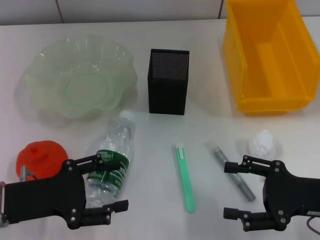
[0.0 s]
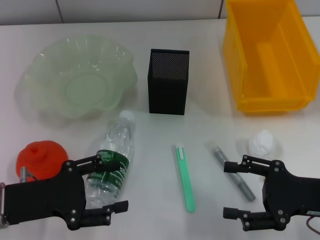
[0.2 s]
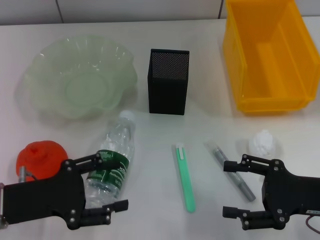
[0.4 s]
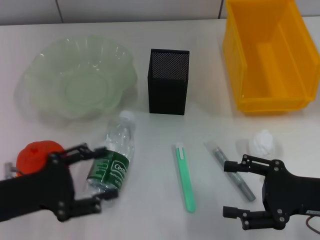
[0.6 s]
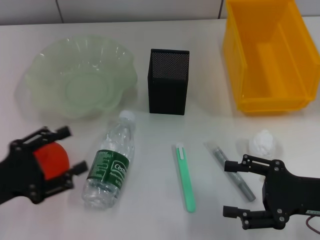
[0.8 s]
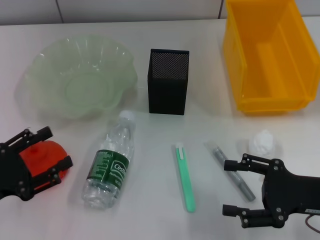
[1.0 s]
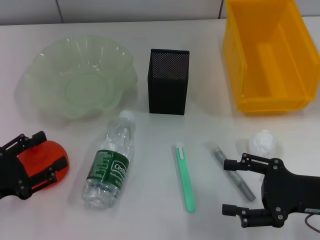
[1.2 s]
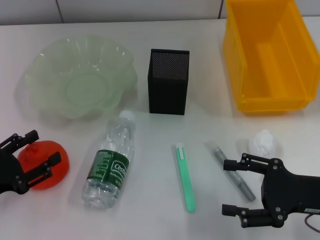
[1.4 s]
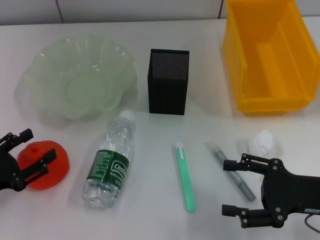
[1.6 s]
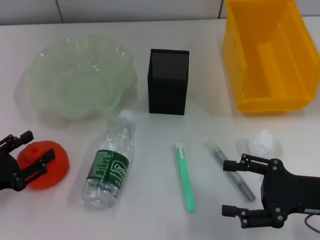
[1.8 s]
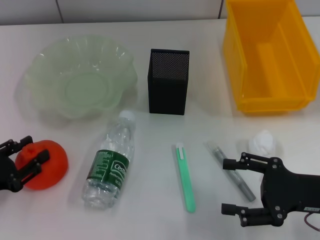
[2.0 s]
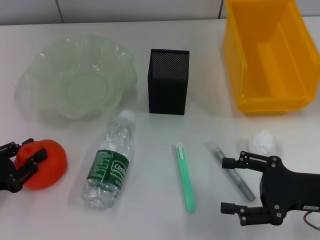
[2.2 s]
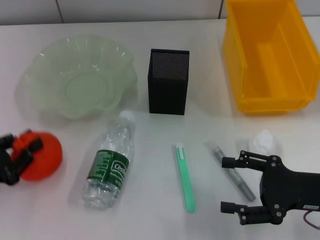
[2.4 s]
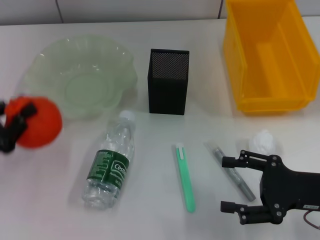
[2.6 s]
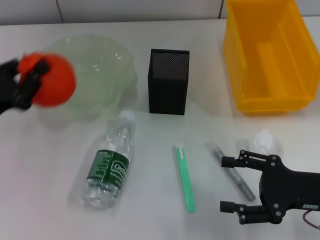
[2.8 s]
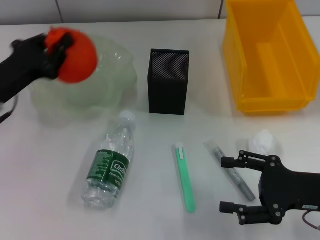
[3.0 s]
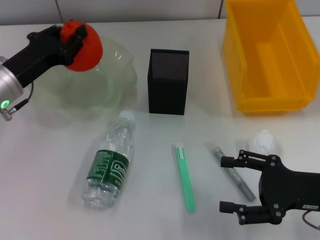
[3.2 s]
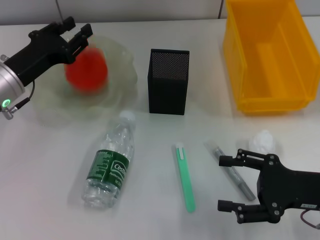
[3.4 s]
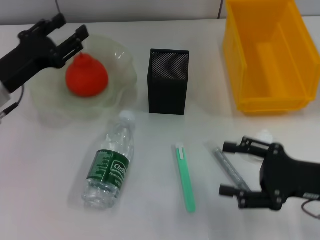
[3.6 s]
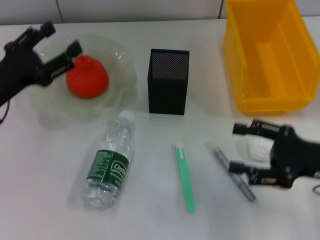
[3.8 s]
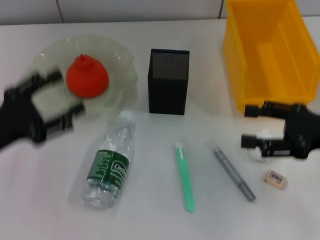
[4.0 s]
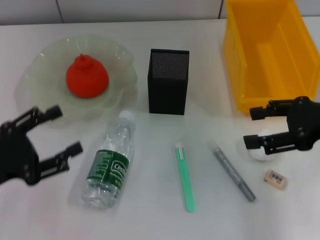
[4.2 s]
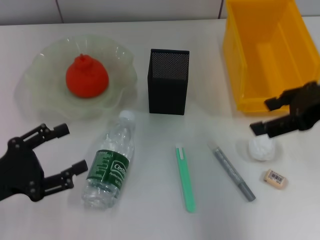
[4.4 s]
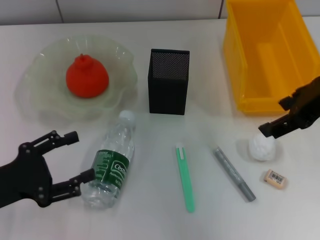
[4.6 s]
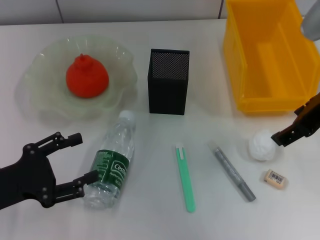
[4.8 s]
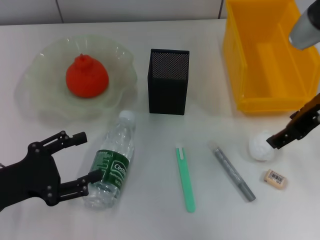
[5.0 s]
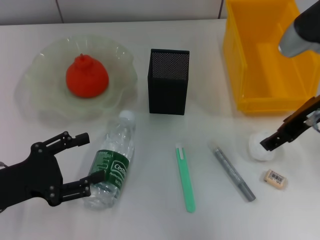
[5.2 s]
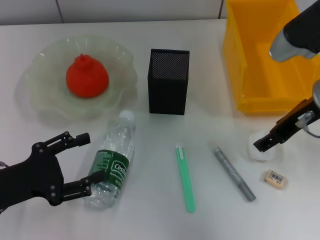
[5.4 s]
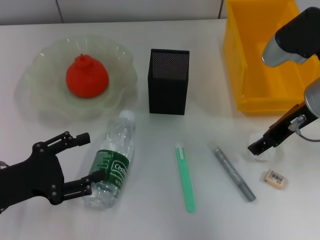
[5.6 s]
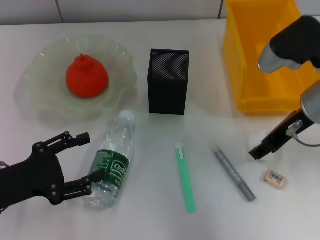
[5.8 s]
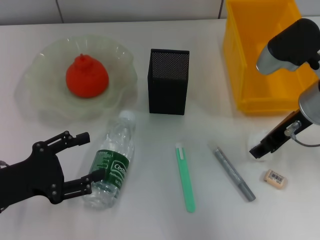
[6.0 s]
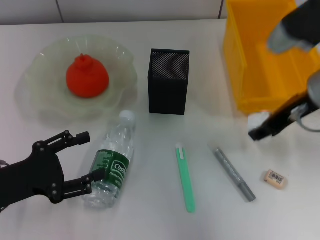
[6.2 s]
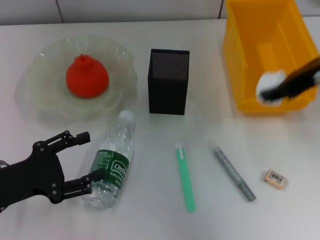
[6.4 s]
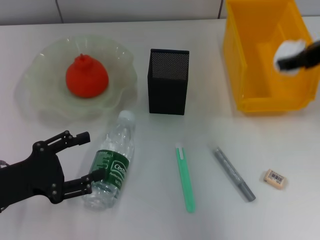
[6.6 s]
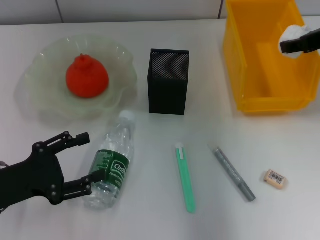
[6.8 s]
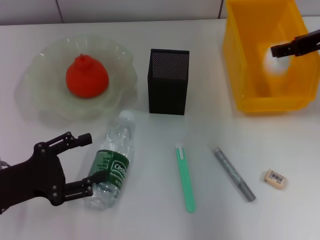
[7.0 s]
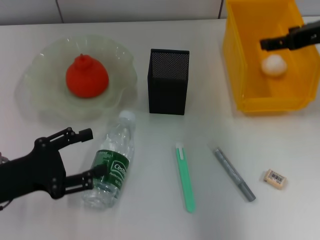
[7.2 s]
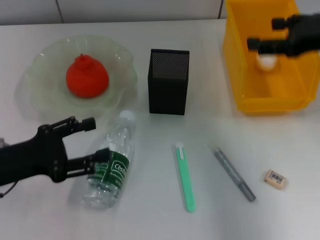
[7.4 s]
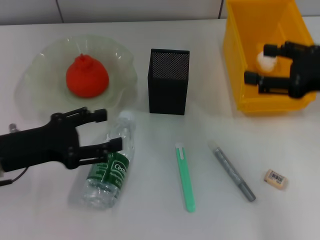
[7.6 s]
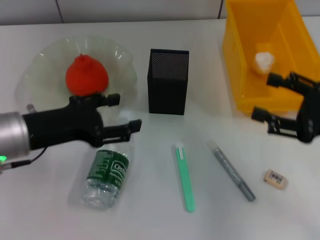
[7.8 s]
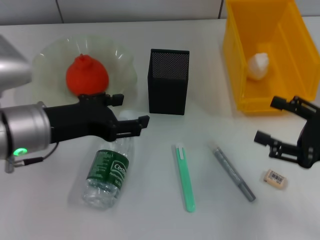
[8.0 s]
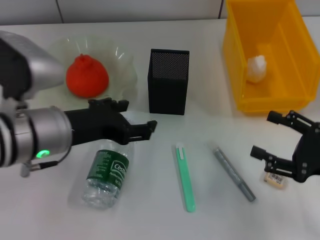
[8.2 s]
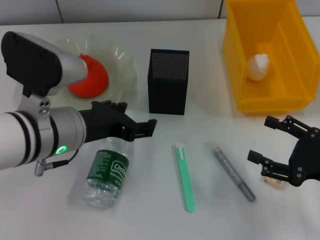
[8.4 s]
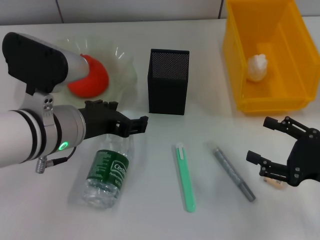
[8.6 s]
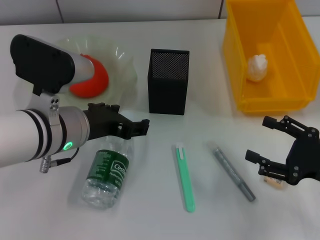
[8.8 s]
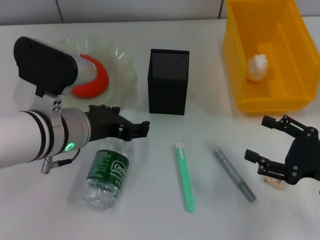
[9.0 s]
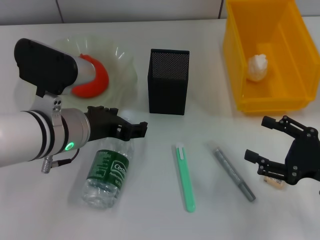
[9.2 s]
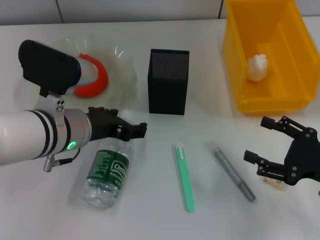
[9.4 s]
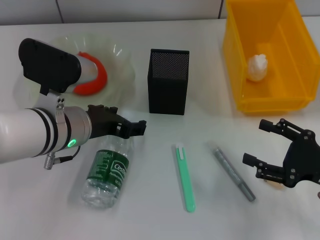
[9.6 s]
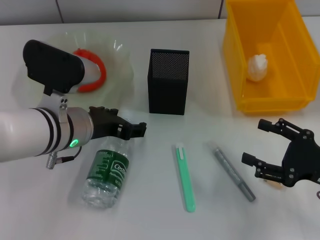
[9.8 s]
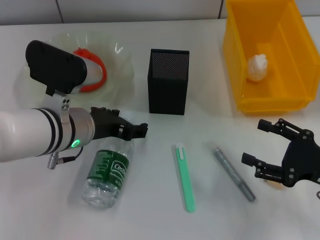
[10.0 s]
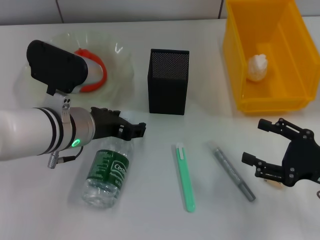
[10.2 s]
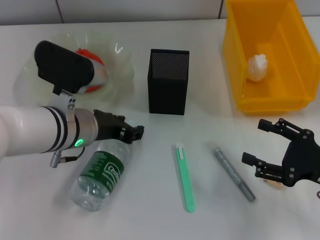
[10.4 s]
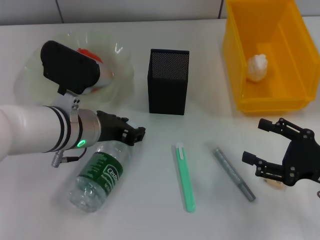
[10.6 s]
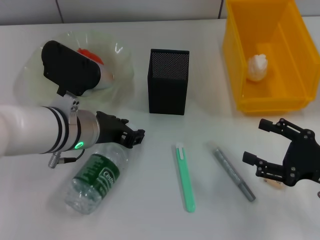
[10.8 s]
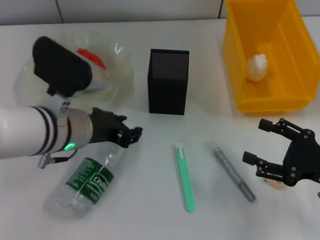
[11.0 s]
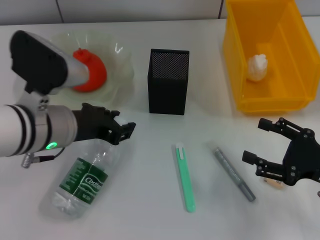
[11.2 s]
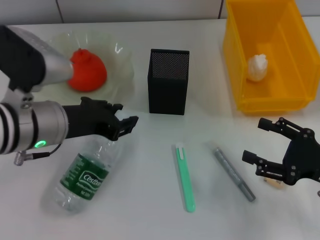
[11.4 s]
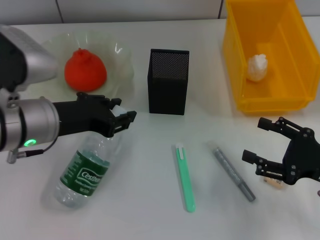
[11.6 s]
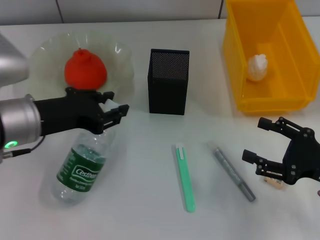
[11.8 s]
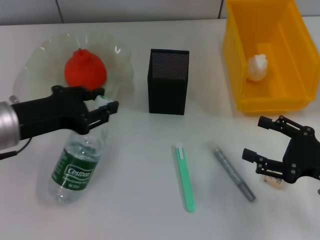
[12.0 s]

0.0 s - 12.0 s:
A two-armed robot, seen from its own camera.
Step, 0.0 s - 2.2 s: Grab the orange with the left hand.
Step, 2.4 s - 3.4 s: Place the orange into the fruit bowl with the left hand.
Step, 3.6 s - 5.8 s: Grab the paper ball with the right hand.
Step, 6.0 s - 7.0 s: Place the paper ball into the trash can with the right hand.
Step, 7.2 s - 10.6 s: Grab the water bottle with the left hand.
0.0 s - 1.6 s: The left gripper goes approximately 5 cm to the left.
1.6 s - 3.0 s: The left gripper heads forward, upward and to the right, covering about 15 cm, and closes up.
3.0 s - 4.4 s: The right gripper heads upward and forward, covering about 20 cm. Meanwhile the left gripper is displaced backward by approximately 10 cm, and opens.
4.4 s - 6.0 s: The right gripper is displaced downward and to the left by approximately 10 cm.
6.0 s - 7.6 s: The right gripper goes some 10 cm to the right, and goes upward and returns, some 10 cm each way. The left gripper shifts by some 5 cm.
7.6 s - 9.0 s: The left gripper is displaced to the right by some 10 cm. Meanwhile the right gripper is displaced downward and backward by roughly 15 cm.
9.0 s - 10.4 s: The grippers stay close to where they were, moving slightly.
10.4 s - 12.0 s: The left gripper moves to the left, some 10 cm, and closes.

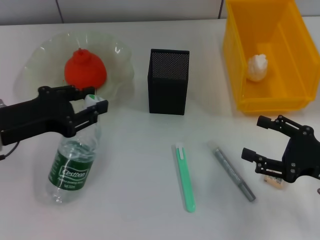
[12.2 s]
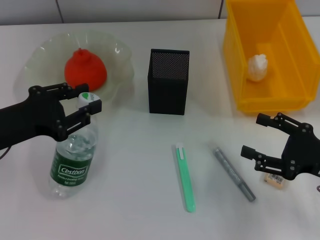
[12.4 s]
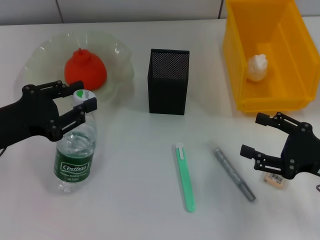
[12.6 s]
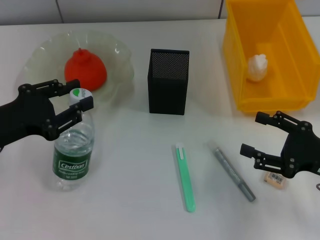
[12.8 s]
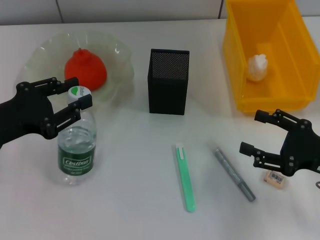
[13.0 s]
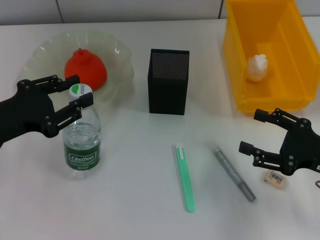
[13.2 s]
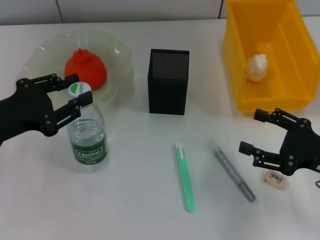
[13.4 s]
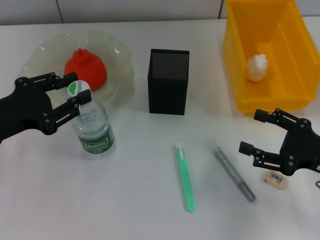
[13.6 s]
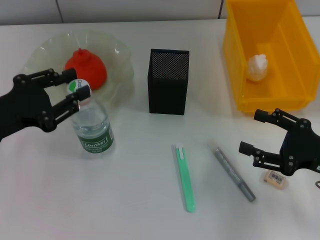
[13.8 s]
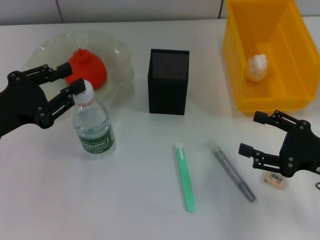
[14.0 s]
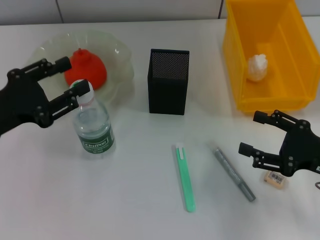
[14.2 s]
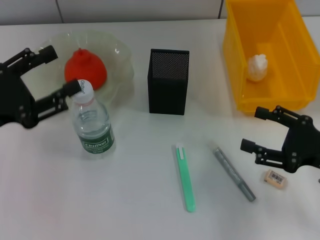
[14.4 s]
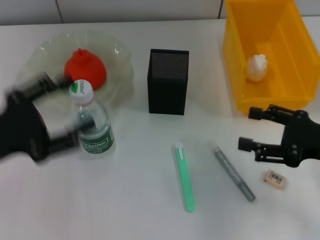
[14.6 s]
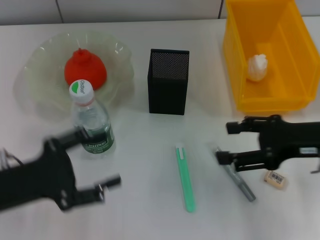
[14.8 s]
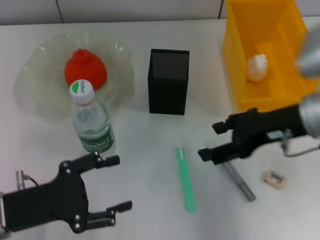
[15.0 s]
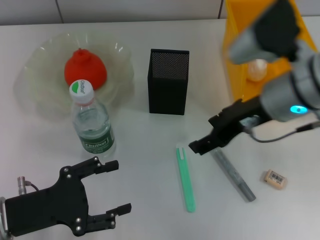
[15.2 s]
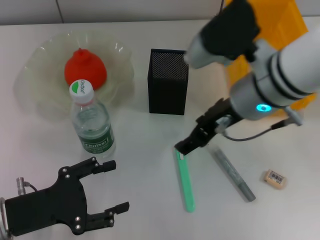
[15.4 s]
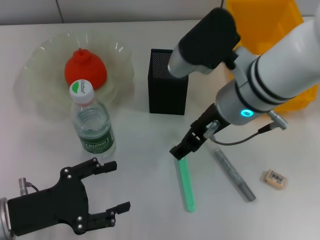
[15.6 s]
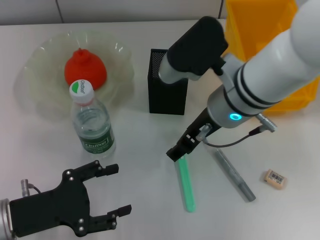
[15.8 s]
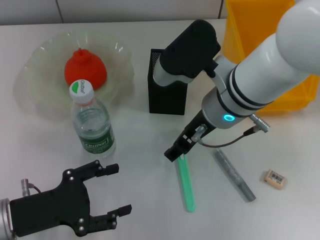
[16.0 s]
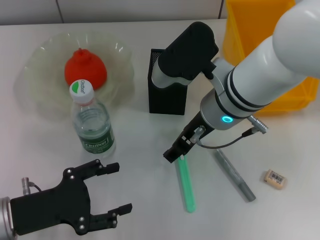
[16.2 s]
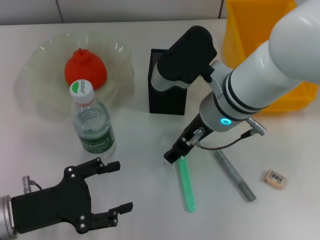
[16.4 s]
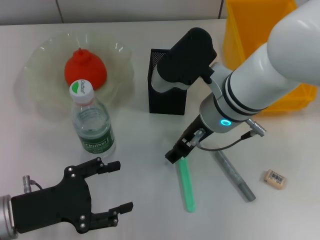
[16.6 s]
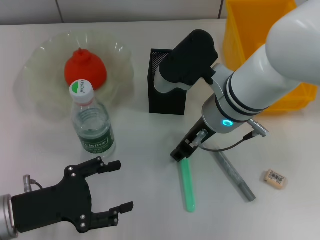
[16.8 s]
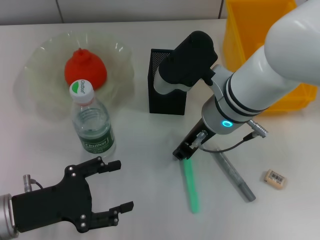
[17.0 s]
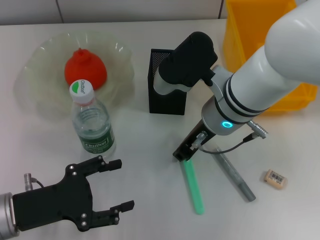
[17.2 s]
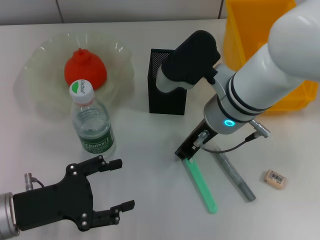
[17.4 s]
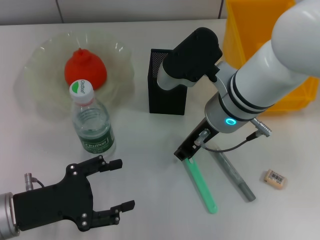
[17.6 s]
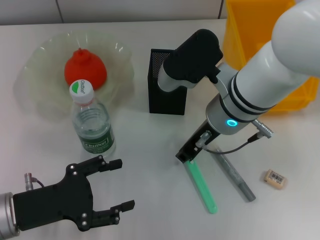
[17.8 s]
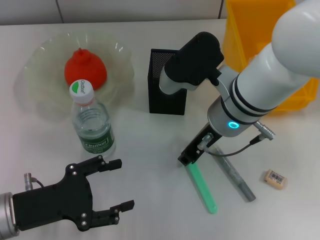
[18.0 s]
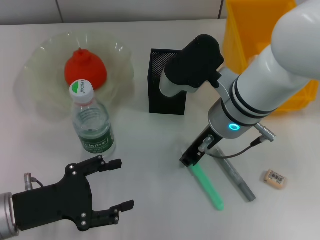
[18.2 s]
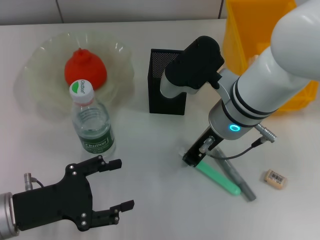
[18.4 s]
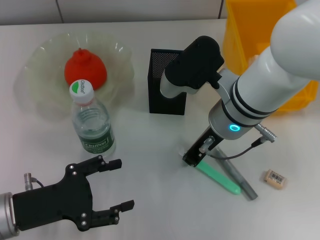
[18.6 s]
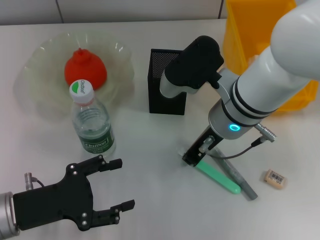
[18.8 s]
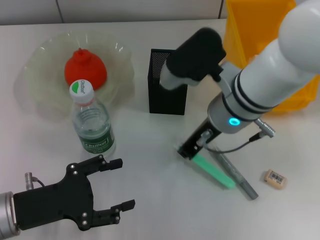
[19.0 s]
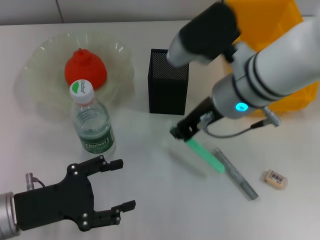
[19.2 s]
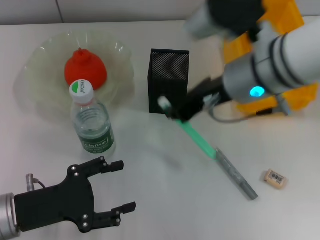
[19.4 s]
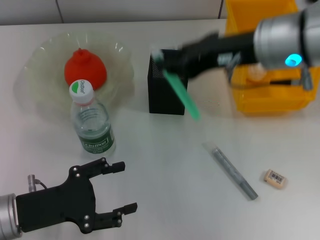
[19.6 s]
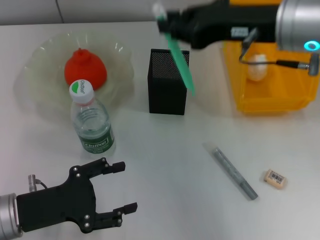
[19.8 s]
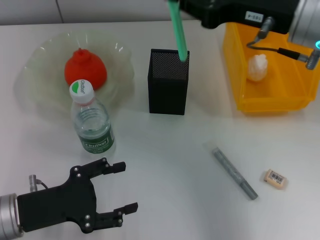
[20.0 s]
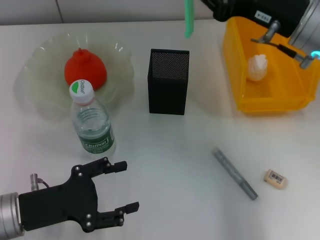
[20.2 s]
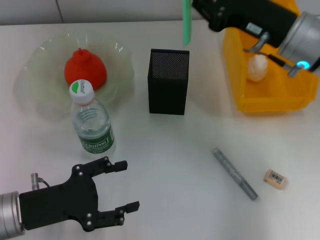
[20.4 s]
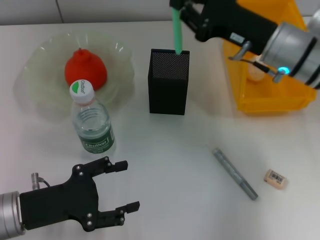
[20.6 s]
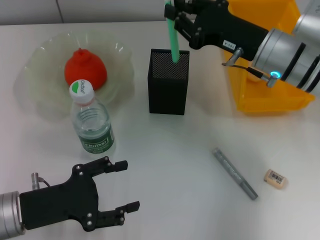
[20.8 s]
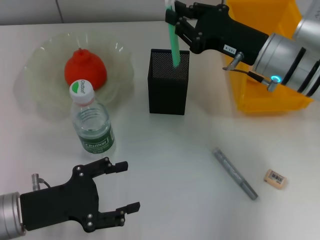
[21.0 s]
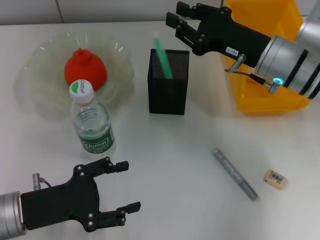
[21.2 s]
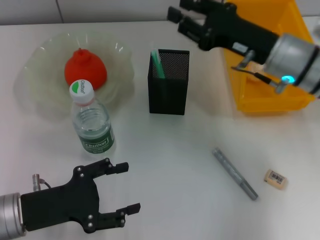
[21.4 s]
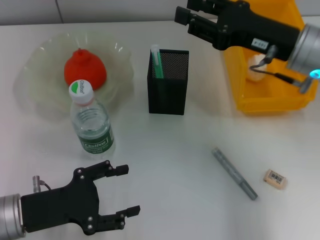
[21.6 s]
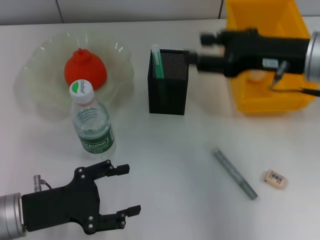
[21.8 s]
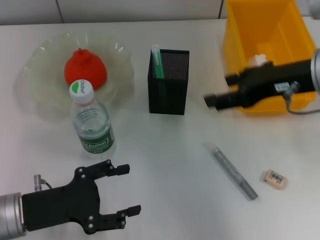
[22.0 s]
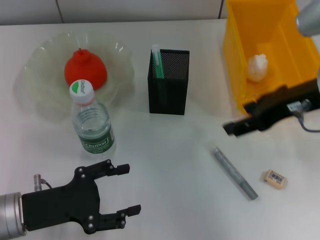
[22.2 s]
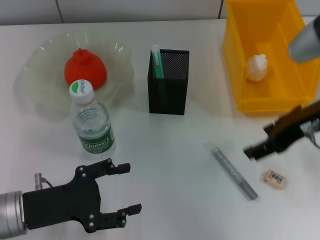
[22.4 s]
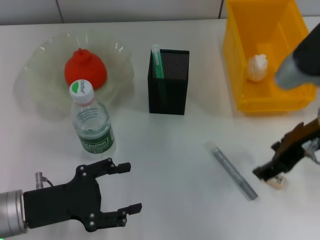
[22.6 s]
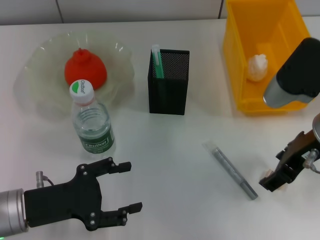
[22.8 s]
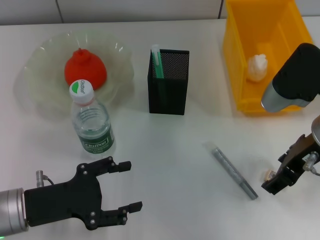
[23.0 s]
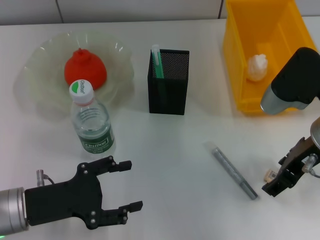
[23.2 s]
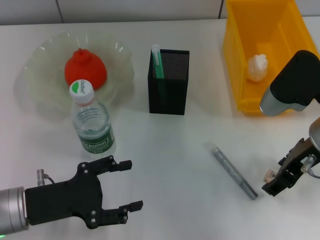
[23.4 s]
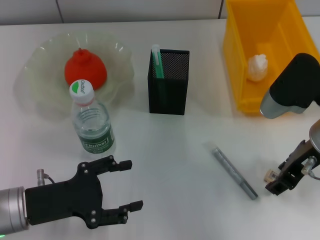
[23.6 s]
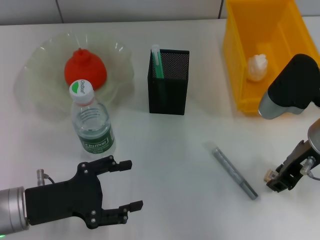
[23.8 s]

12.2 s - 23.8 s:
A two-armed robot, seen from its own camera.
Step, 12.2 s - 14.2 s: Place the water bottle on the table with the left hand.
Step, 14.4 s - 18.6 s: Grab the blue utility knife with the right hand.
Step, 18.8 s - 21.0 s: Place the blue utility knife into the pen holder with the right hand.
12.2 s - 13.6 s: The grippers make only small movements.
13.6 s - 15.0 s: The left gripper heads backward and downward, covering approximately 10 cm, and opens up. The right gripper moves upward, to the left and forward, approximately 15 cm.
15.0 s - 16.6 s: The right gripper heads to the left, covering some 10 cm.
16.6 s - 18.0 s: The right gripper closes up.
18.0 s - 19.4 s: The right gripper shifts about 5 cm upward.
19.4 s - 21.0 s: The right gripper travels downward and to the right by roughly 10 cm.
21.0 s - 22.4 s: The right gripper travels backward and upward by about 10 cm, and opens up.
22.4 s - 23.8 s: The right gripper travels downward by approximately 5 cm, and closes.
